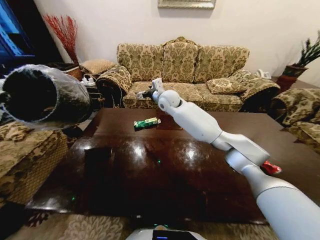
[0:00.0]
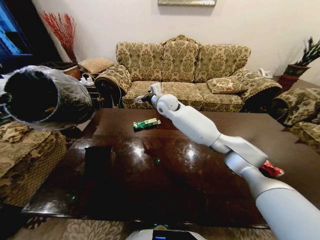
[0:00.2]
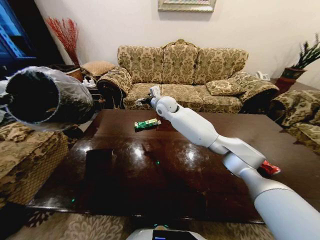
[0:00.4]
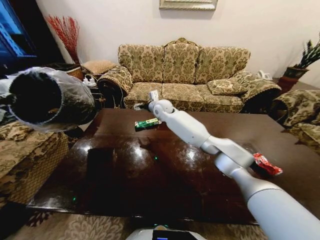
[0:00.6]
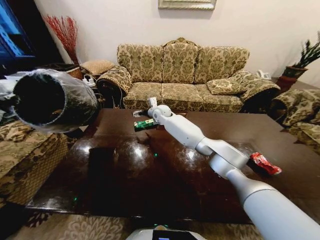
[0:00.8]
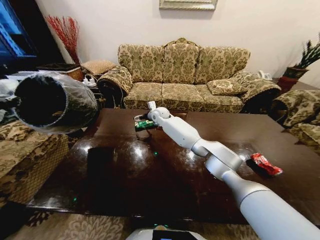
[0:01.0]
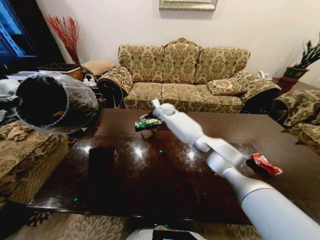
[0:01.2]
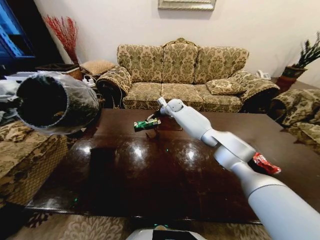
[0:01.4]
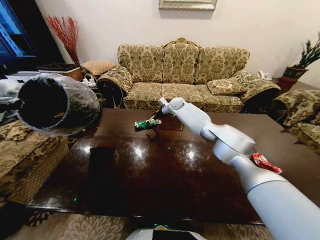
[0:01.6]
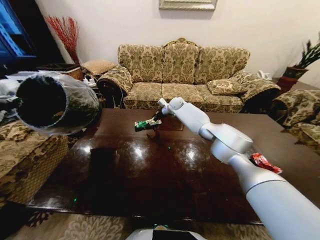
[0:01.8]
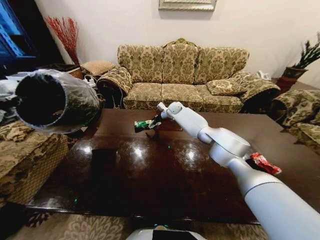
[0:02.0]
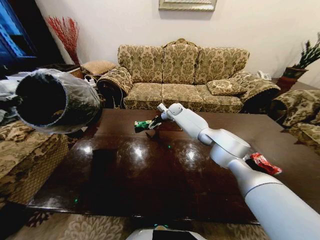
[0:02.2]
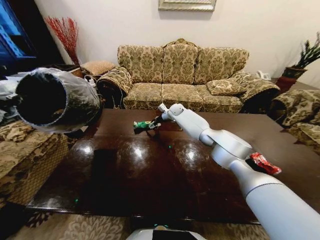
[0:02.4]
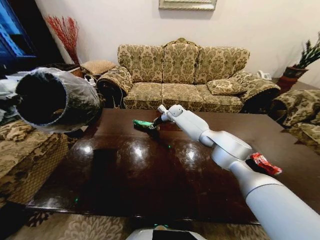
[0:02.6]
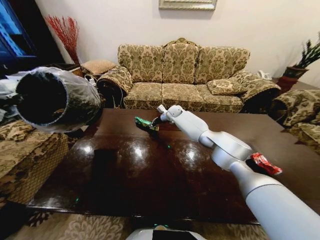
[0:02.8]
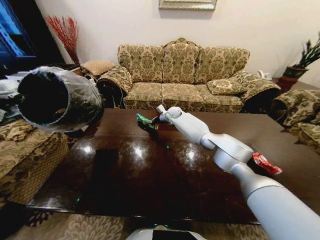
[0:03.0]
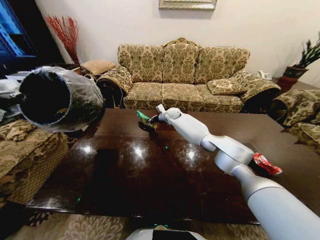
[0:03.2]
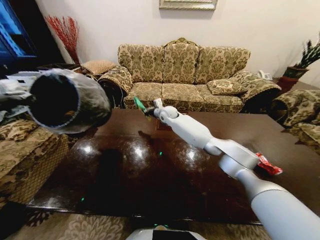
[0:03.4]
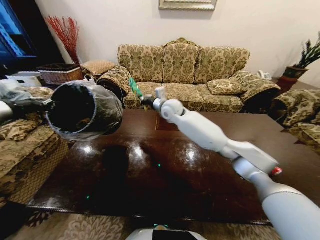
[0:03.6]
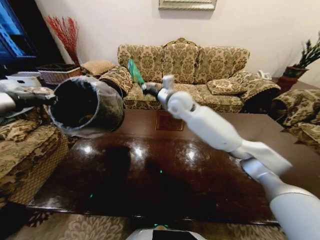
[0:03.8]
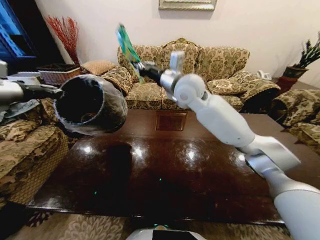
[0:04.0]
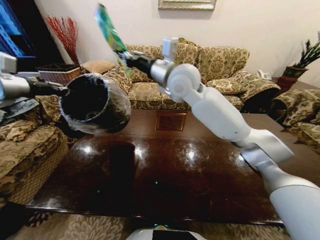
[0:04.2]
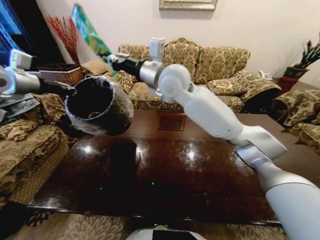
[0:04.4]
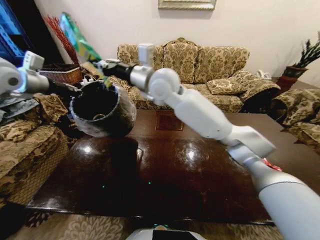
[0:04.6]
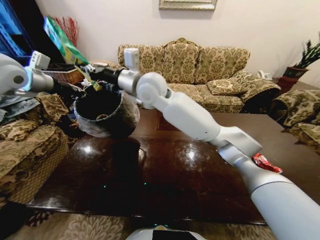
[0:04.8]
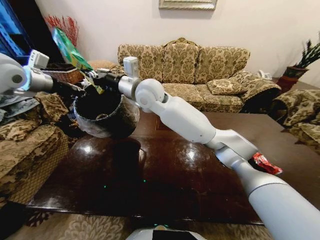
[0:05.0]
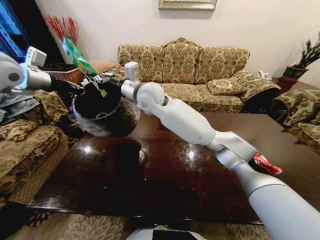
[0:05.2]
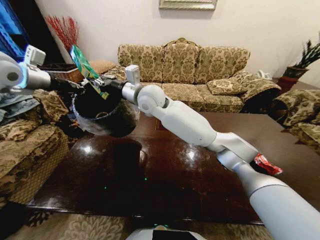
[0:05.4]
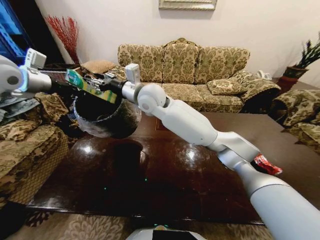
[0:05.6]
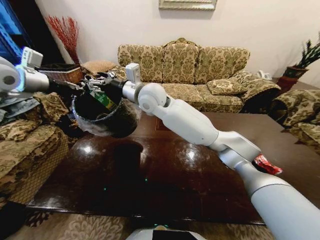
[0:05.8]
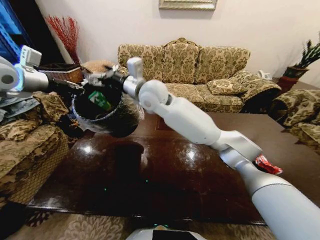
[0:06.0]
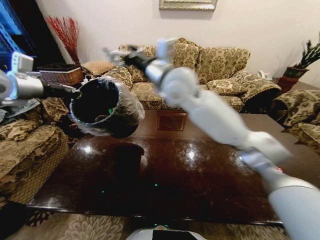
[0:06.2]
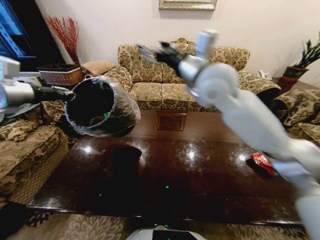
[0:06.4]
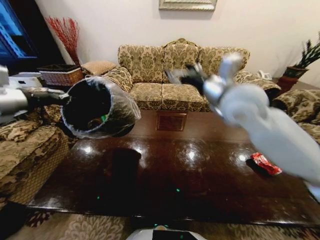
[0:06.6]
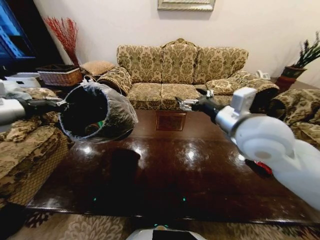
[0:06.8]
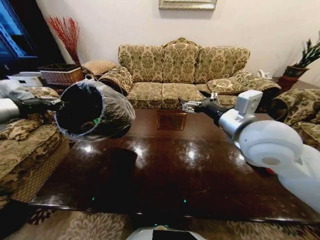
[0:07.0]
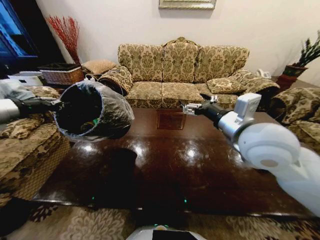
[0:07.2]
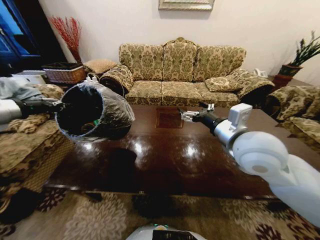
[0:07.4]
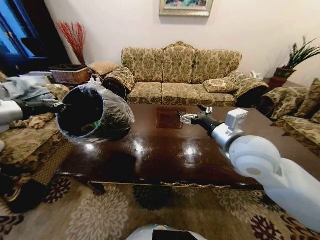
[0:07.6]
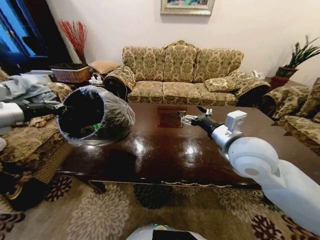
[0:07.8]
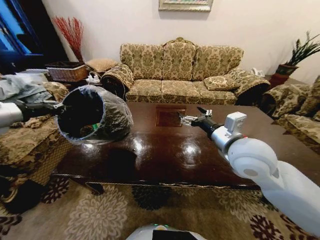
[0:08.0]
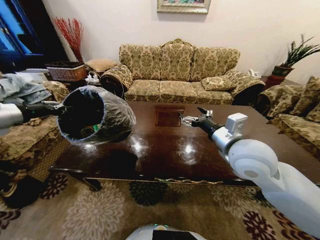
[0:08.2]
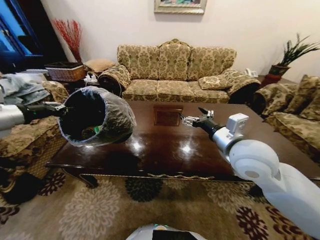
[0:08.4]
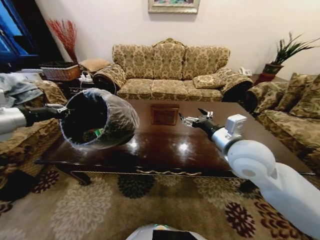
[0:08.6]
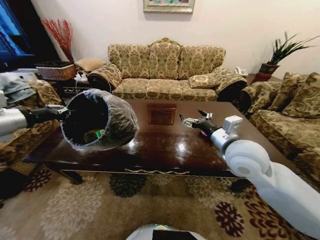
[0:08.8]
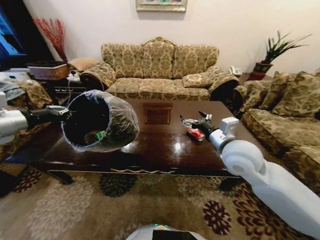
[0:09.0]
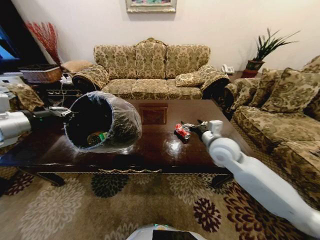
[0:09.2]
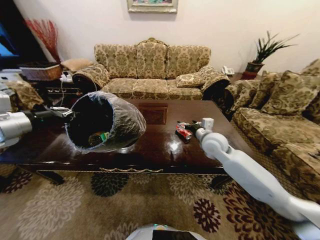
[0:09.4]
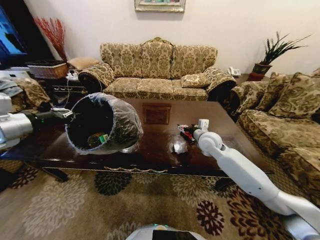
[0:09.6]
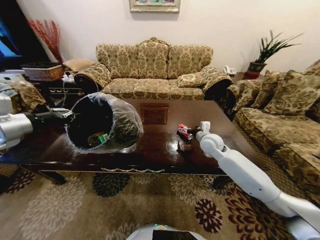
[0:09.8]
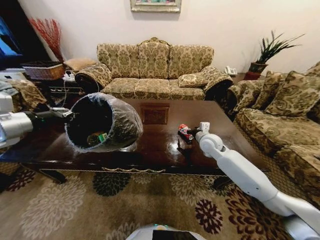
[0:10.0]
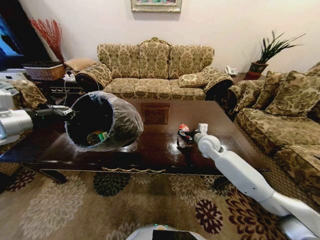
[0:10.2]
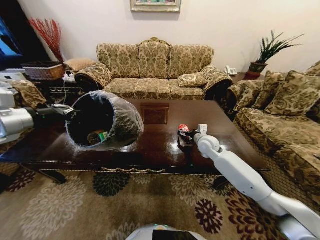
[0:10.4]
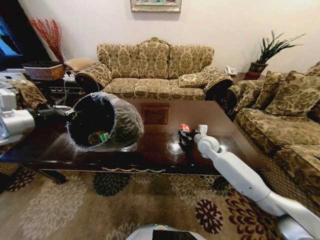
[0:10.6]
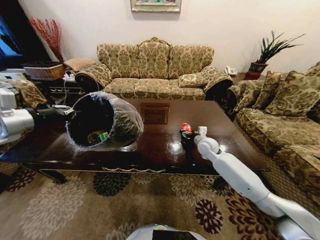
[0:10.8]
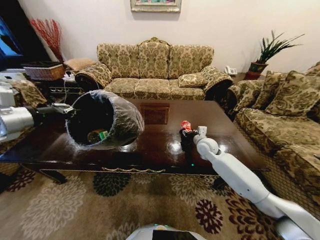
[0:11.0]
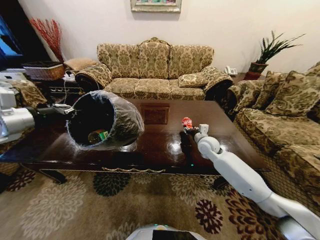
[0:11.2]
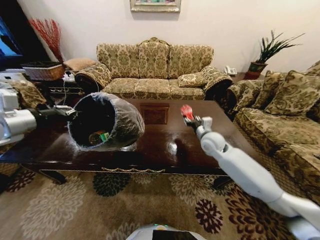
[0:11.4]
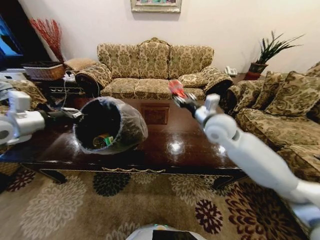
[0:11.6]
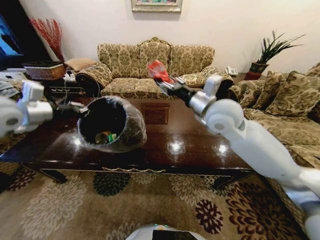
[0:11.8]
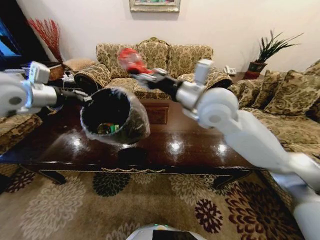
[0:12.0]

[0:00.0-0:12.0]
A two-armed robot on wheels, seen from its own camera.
Task of the whole recording: Move to the front of the table and place the trash on the table into the trash bin.
0.0 to 1.6 s: The right gripper moves forward, downward and to the right, roughly 15 cm.
1.6 to 3.0 s: The right gripper is displaced downward by roughly 5 cm, and closes its fingers.
3.0 to 4.4 s: The left gripper goes about 20 cm forward, to the right and upward. The right gripper heads upward and backward, covering some 35 cm.
4.4 to 6.0 s: The right gripper shifts roughly 5 cm to the left, and opens its fingers.
6.0 to 7.6 s: The left gripper shifts some 15 cm backward, downward and to the left. Meanwhile the right gripper goes approximately 30 cm to the right and backward.
7.6 to 9.0 s: The right gripper travels downward by approximately 5 cm.
9.0 to 10.4 s: The right gripper moves forward and downward, about 20 cm.
10.4 to 12.0 s: The left gripper travels forward, upward and to the right by roughly 10 cm; the right gripper shifts approximately 25 cm upward, and closes.

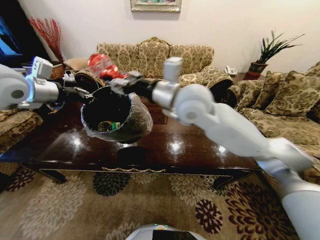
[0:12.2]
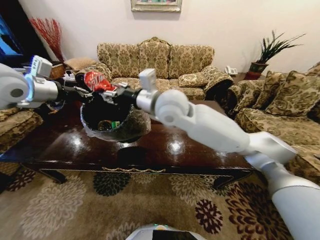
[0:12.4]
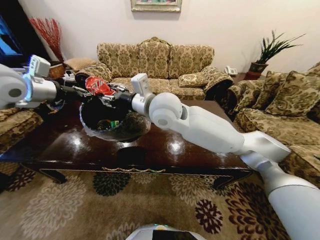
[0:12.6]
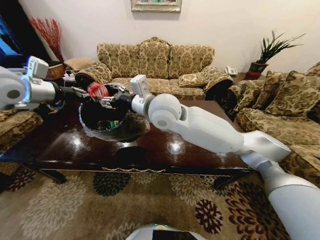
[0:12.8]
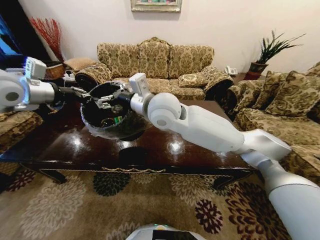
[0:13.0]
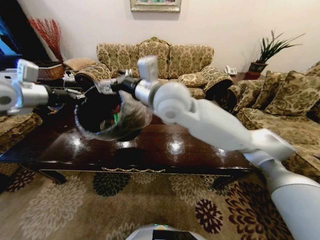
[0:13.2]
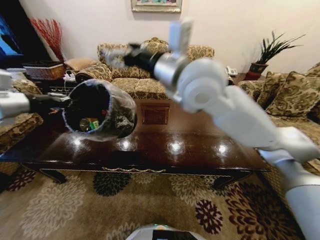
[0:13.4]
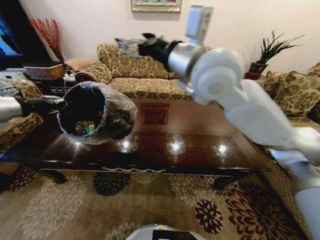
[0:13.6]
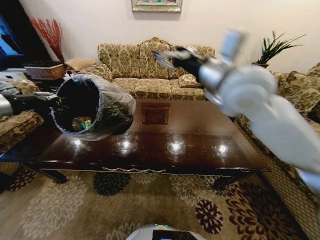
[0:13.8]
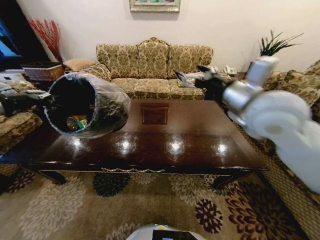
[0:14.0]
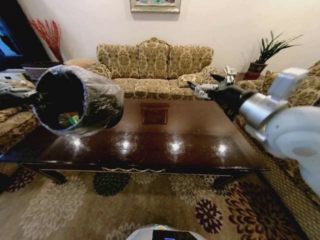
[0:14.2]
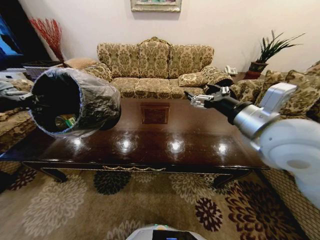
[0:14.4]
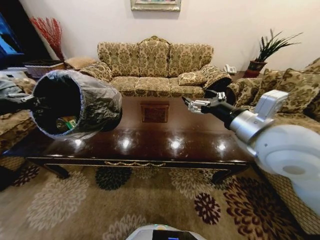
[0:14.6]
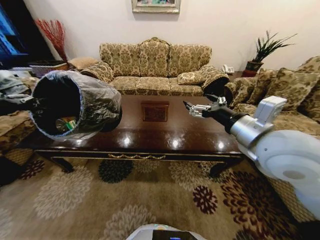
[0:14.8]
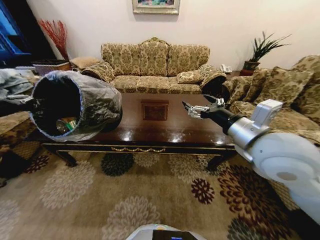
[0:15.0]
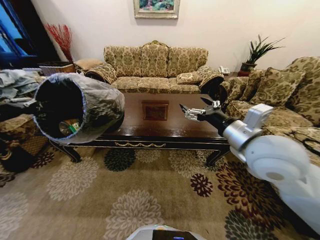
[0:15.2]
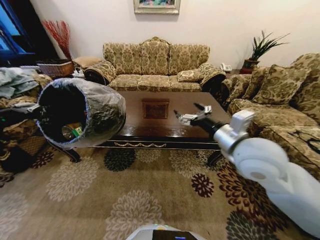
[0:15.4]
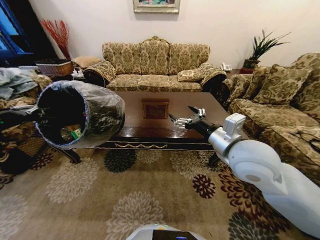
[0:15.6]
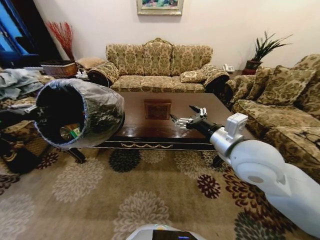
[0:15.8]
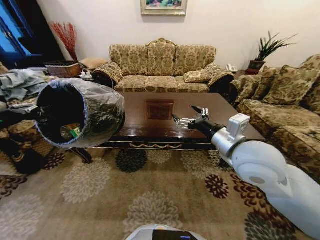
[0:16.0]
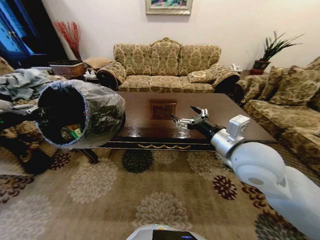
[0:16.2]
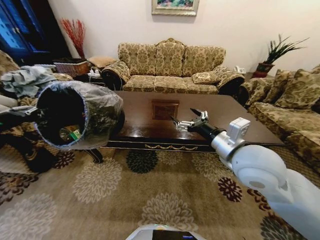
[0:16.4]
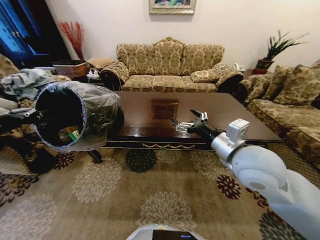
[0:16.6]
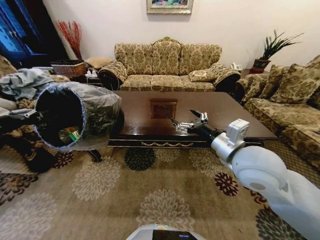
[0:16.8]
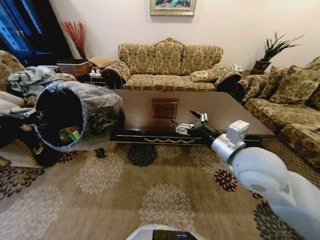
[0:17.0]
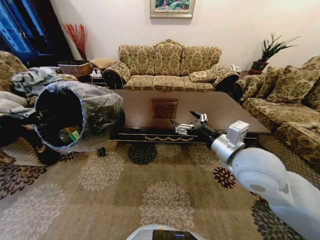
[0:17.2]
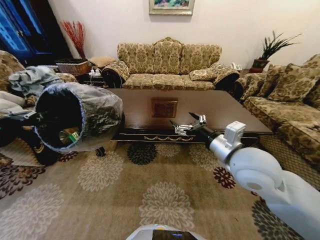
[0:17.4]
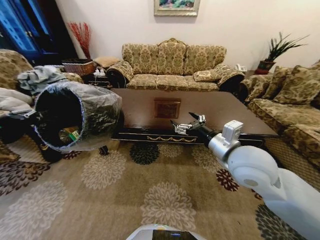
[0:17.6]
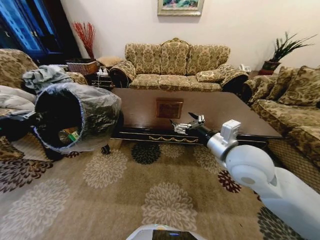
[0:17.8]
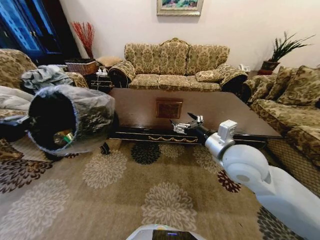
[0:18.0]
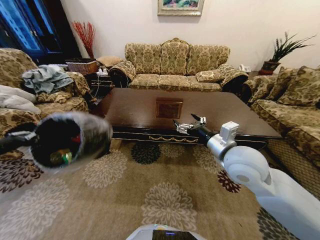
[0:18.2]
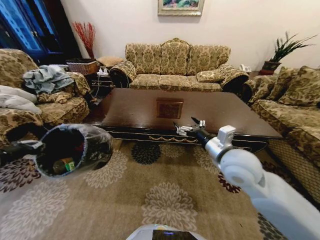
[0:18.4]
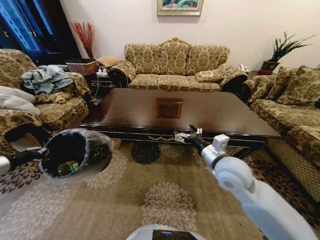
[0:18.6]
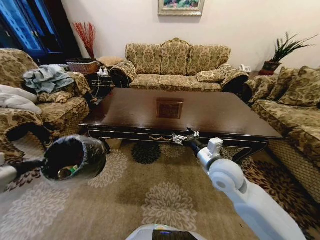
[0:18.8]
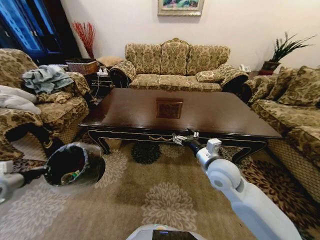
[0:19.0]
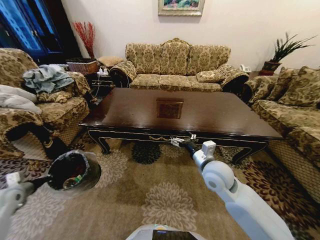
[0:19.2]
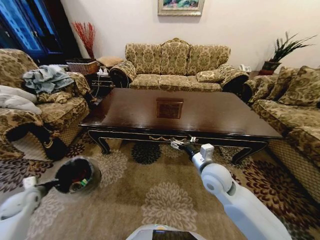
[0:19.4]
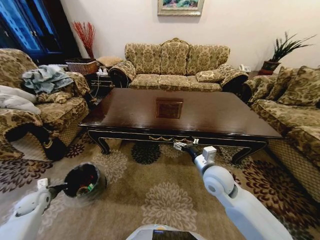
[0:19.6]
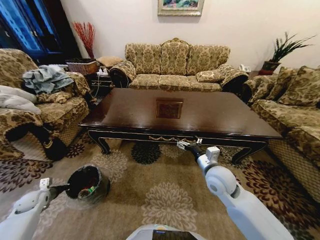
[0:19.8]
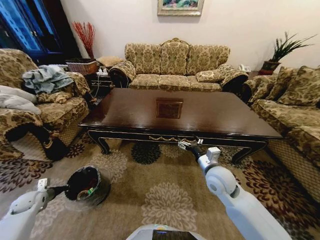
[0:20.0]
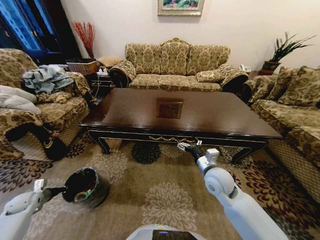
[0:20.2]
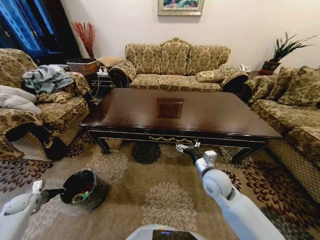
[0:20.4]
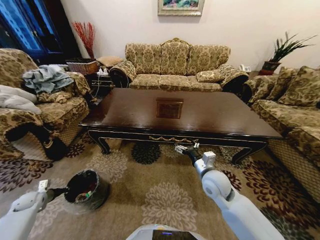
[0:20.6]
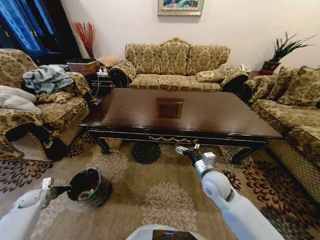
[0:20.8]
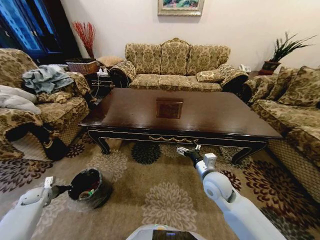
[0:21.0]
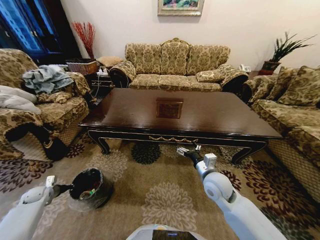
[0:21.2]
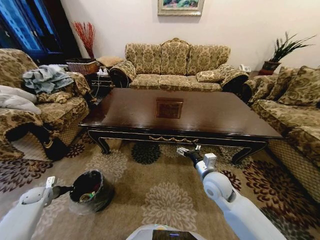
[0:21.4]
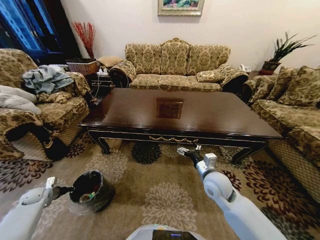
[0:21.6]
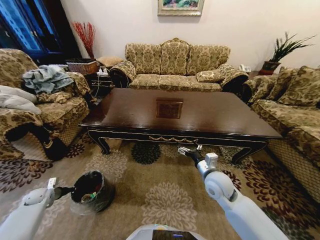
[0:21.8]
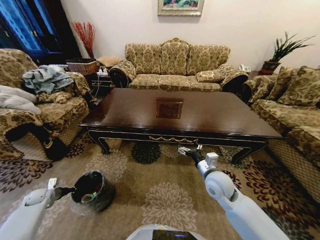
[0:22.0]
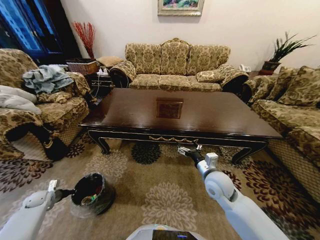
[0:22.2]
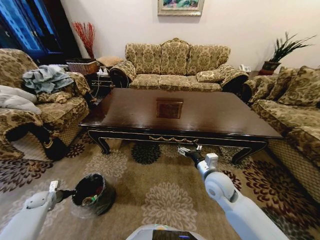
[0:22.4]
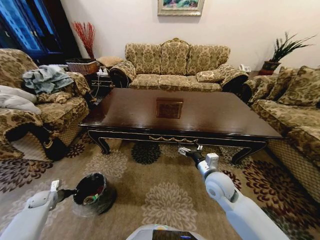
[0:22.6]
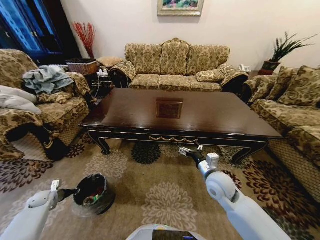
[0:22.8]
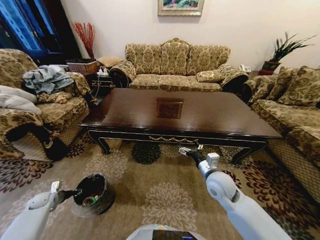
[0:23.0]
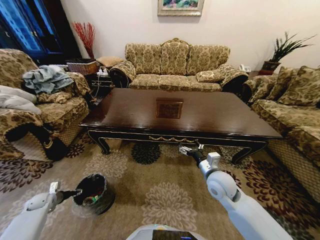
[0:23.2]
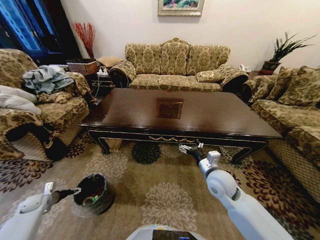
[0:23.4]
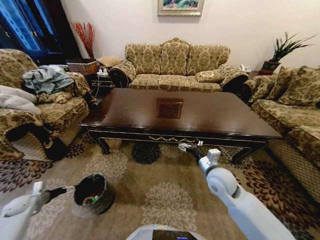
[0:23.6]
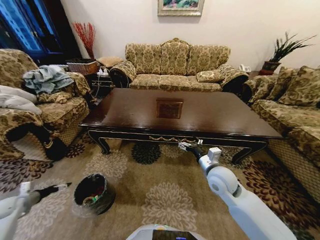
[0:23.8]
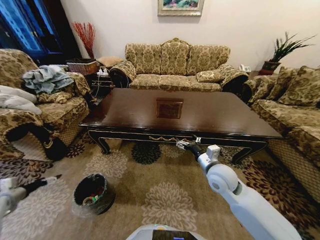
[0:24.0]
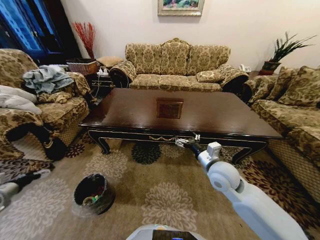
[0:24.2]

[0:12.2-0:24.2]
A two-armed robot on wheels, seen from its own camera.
Task of the whole recording: Move to the front of the table and place the trash on the table into the trash bin.
12.2 to 13.8 s: The right gripper goes about 10 cm to the right, and opens up. The left gripper heads to the left and backward, covering some 10 cm.
13.8 to 15.2 s: The right gripper travels downward, backward and to the right by approximately 15 cm. The left gripper travels backward by approximately 5 cm.
16.6 to 18.2 s: The left gripper moves roughly 5 cm.
18.2 to 19.8 s: The right gripper moves downward, roughly 15 cm, while the left gripper moves downward, about 35 cm.
19.8 to 21.2 s: The left gripper changes place by about 5 cm.
21.2 to 22.6 s: The grippers stay close to where they were, moving slightly.
22.6 to 24.2 s: The right gripper moves upward, about 5 cm. Meanwhile the left gripper heads upward, covering about 20 cm, and opens its fingers.
